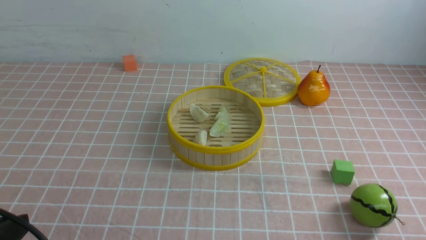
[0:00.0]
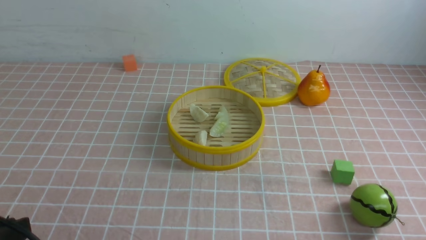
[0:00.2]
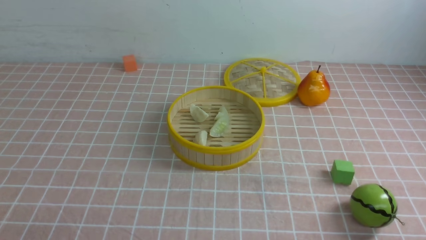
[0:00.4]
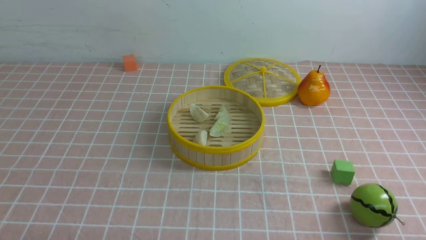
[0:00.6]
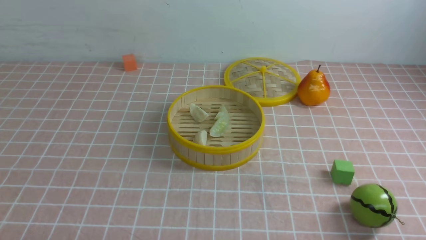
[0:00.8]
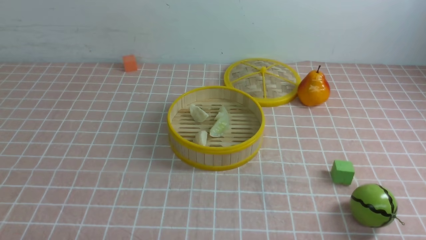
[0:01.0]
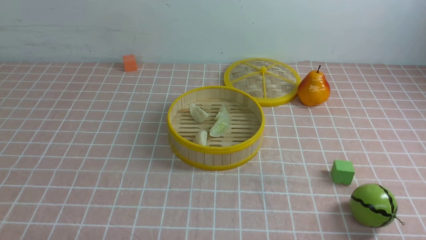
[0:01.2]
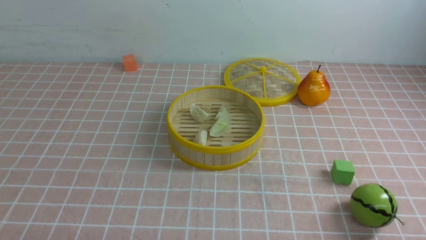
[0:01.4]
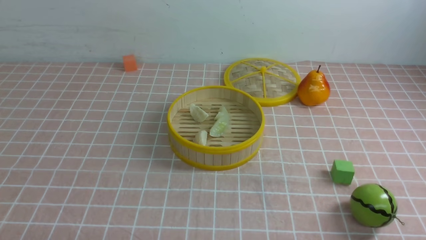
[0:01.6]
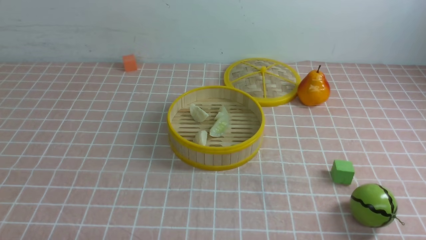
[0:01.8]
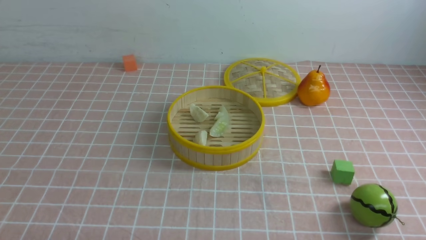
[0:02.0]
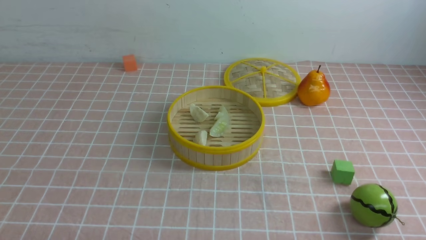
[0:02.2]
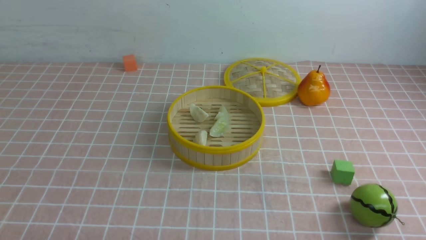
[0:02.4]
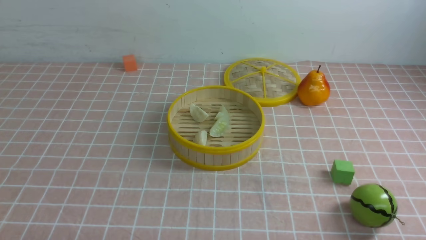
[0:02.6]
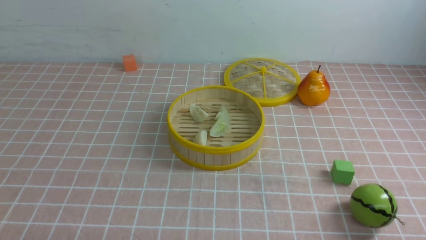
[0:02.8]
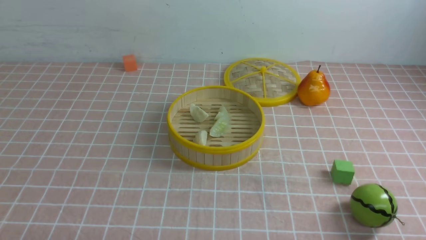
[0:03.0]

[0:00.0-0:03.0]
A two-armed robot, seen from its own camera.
Task of the whole recording: put the dumplings into the steamer on the table with the pink tablecloth.
0:00.0 to 0:01.6: The left gripper heads downward, covering approximately 10 cm.
0:01.6 to 0:03.0: The two grippers keep their place.
